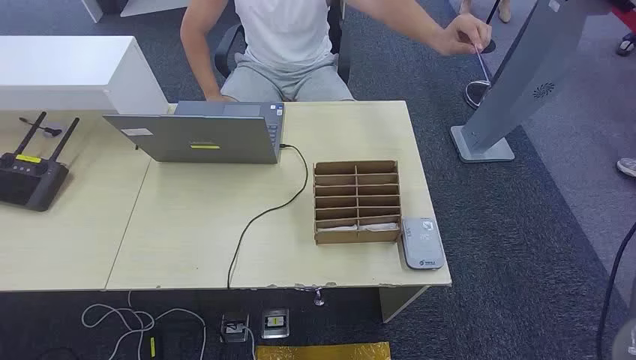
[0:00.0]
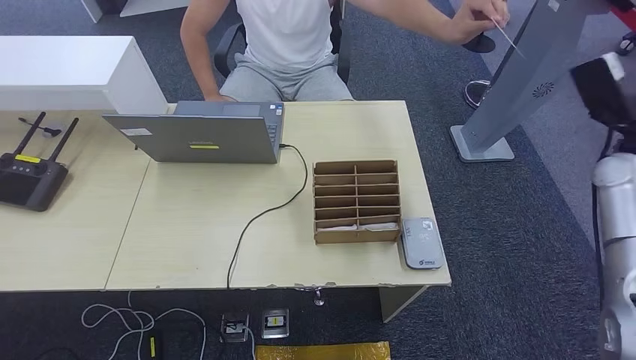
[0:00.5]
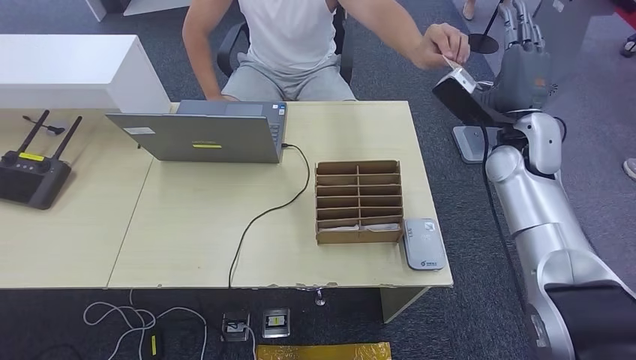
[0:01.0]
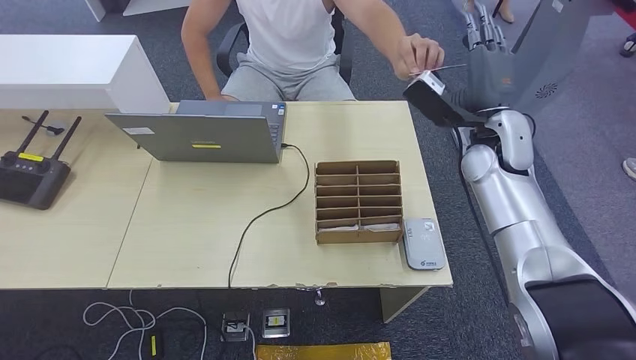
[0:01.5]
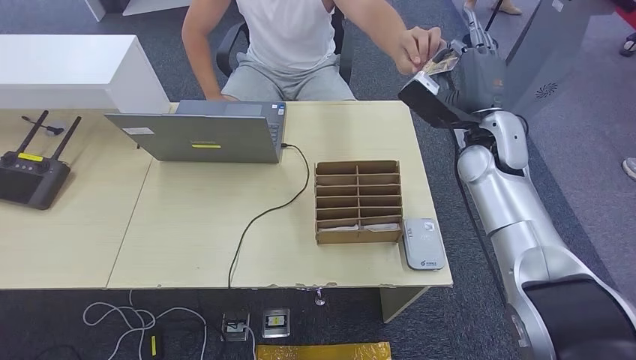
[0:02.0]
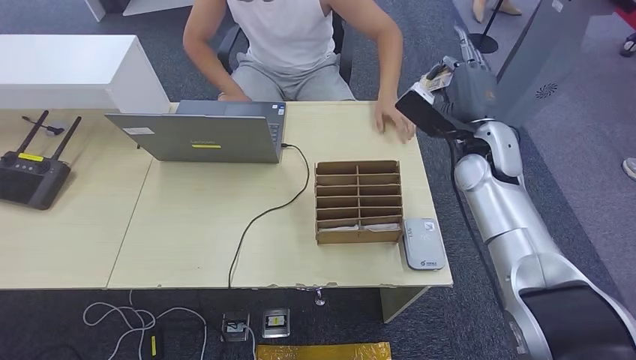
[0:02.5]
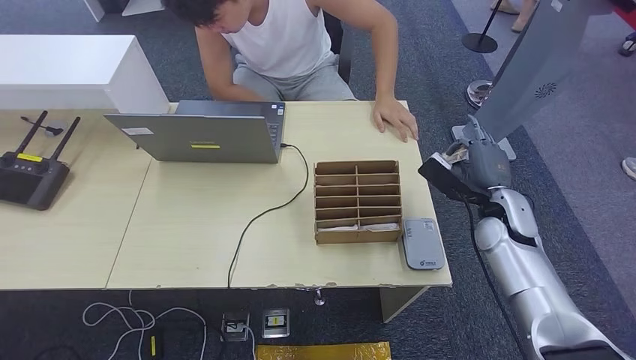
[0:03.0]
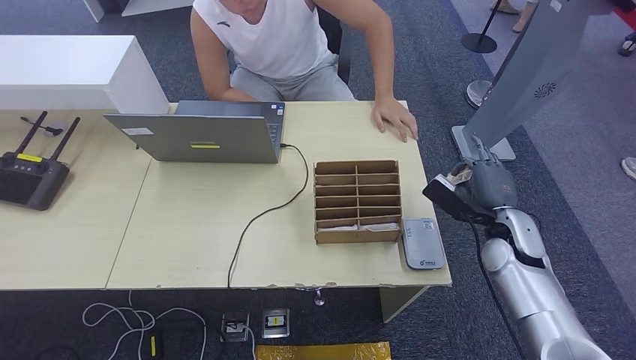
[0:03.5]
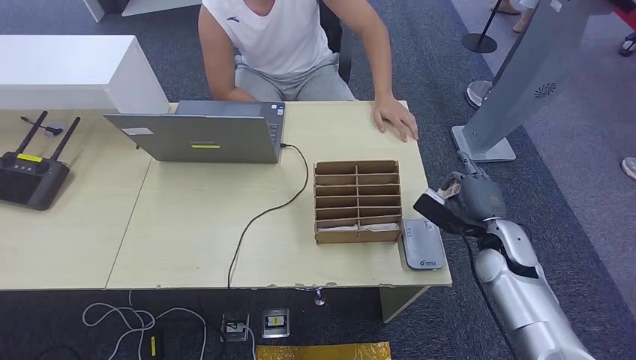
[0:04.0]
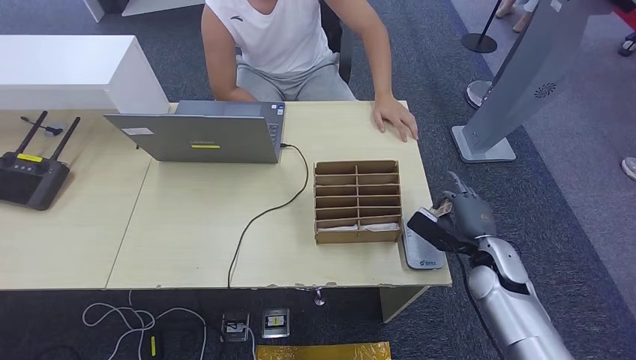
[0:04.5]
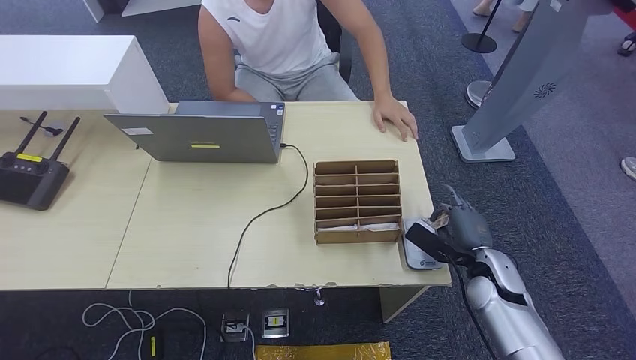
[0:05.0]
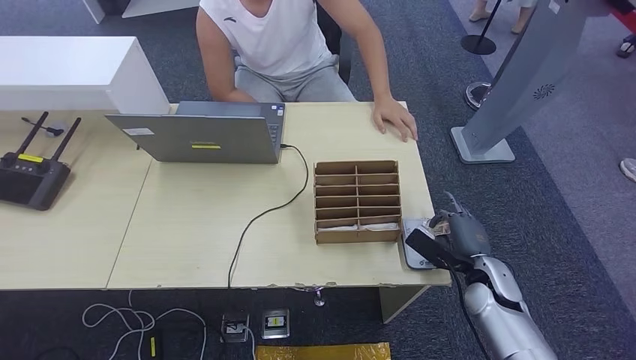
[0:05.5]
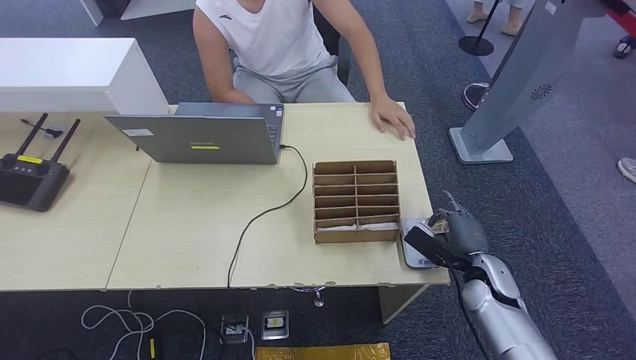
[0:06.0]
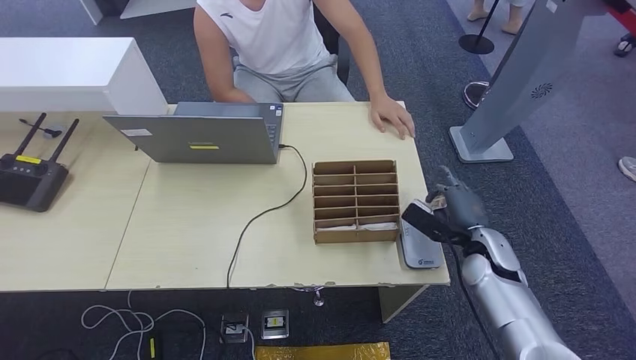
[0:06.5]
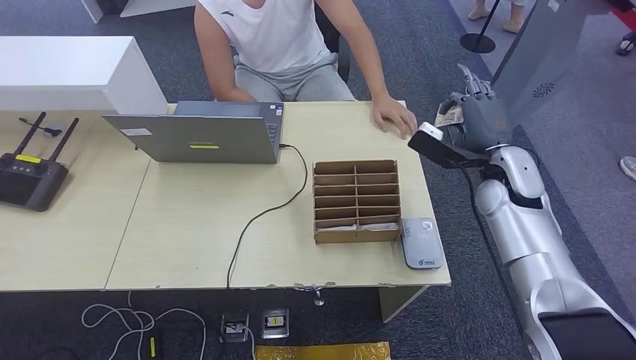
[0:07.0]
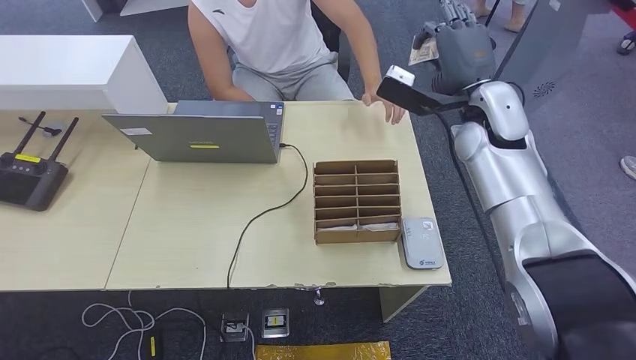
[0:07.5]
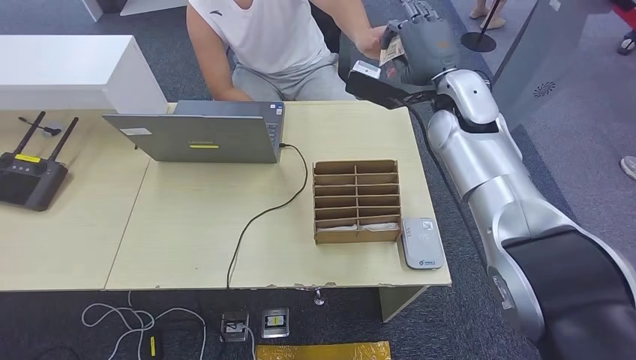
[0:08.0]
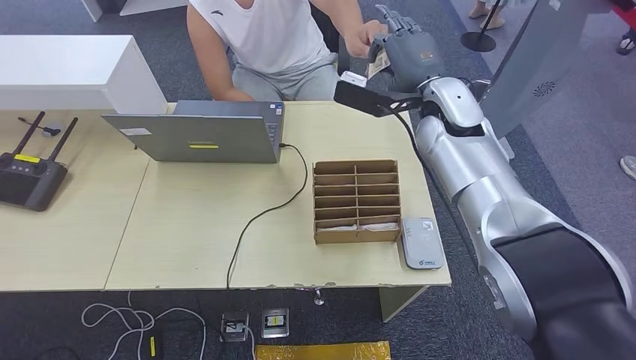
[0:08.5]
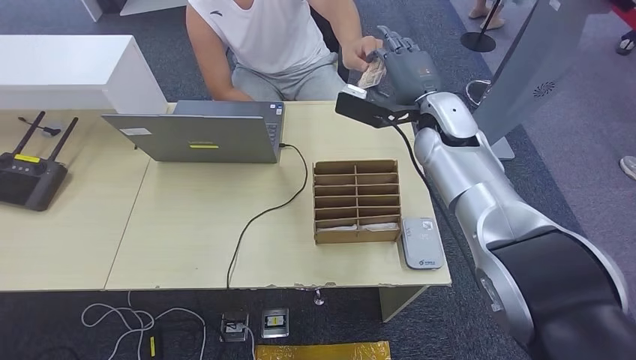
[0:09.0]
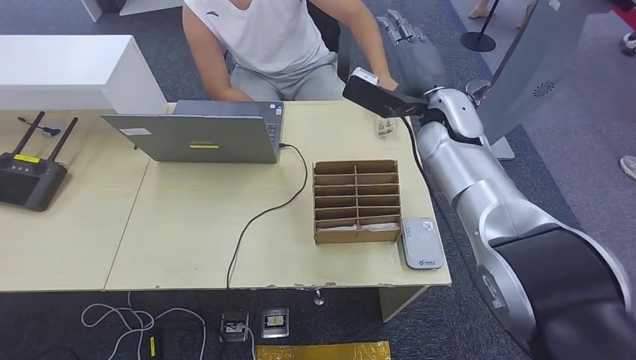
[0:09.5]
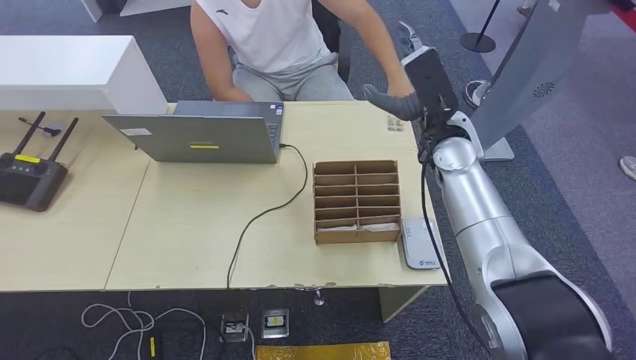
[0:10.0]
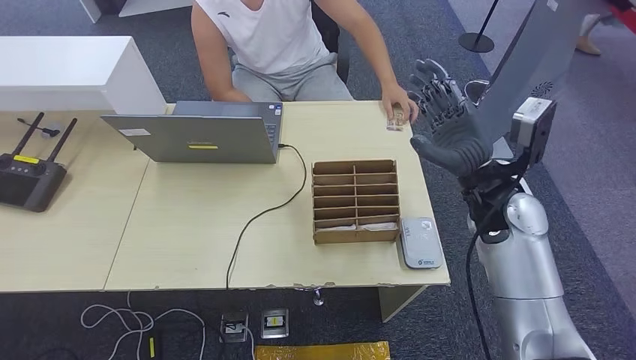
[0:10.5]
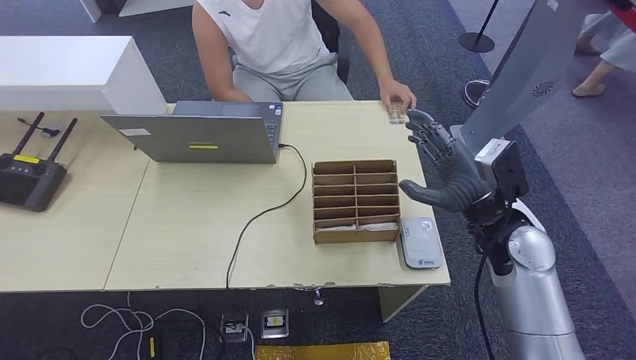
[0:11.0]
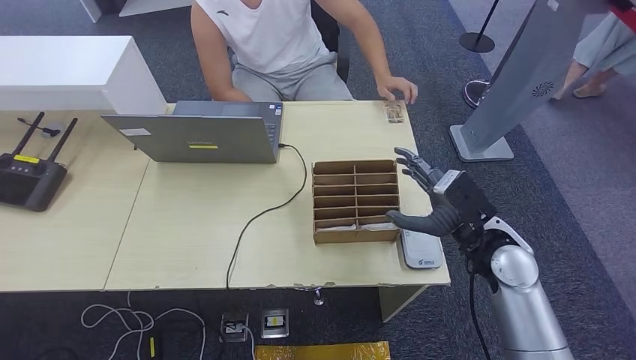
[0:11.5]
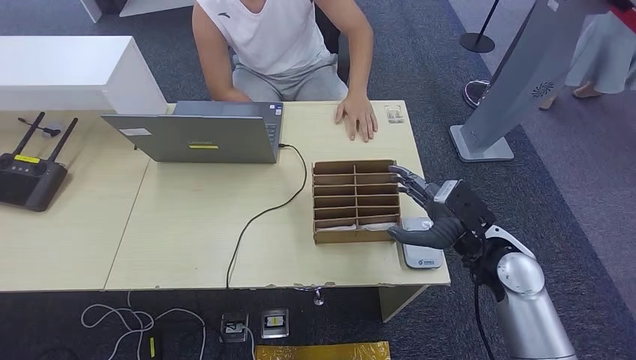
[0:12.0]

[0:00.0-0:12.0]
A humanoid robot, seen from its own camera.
Step, 0:00.0 to 0:02.0: Take the ID card from the person's hand.
Step, 0:02.5 to 0:05.5: Place the ID card on the card reader.
Step, 0:06.0 to 0:10.0: Hand the ID card to the person.
0:02.0 to 0:04.0: The right hand is displaced downward and backward by some 20 cm.
0:04.0 to 0:06.0: The right hand is displaced downward by roughly 5 cm.
0:08.0 to 0:10.0: The right hand goes about 5 cm downward.
0:10.0 to 0:12.0: The right hand heads backward, downward and to the right, covering about 20 cm.

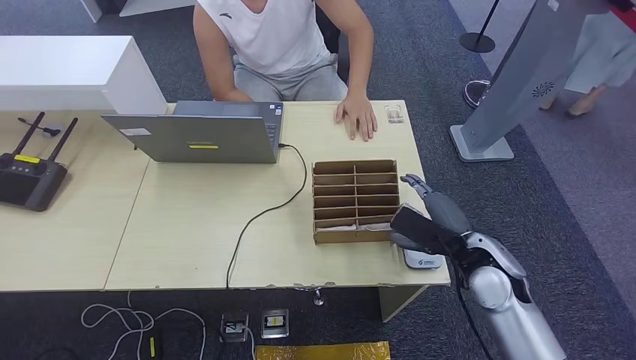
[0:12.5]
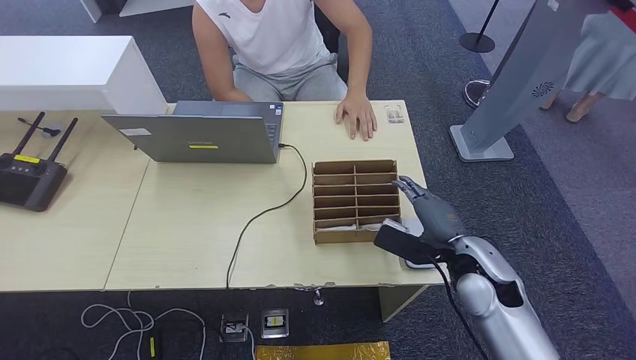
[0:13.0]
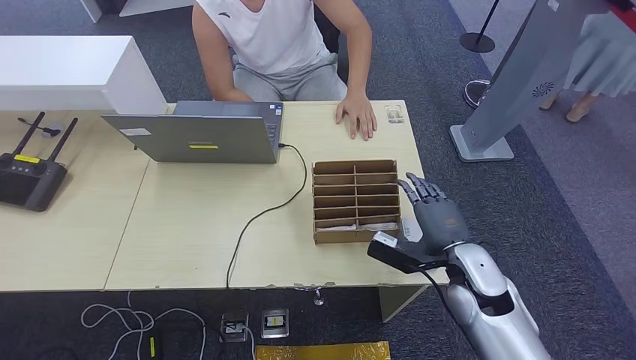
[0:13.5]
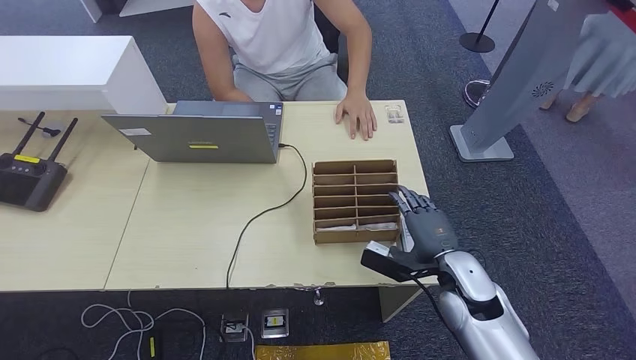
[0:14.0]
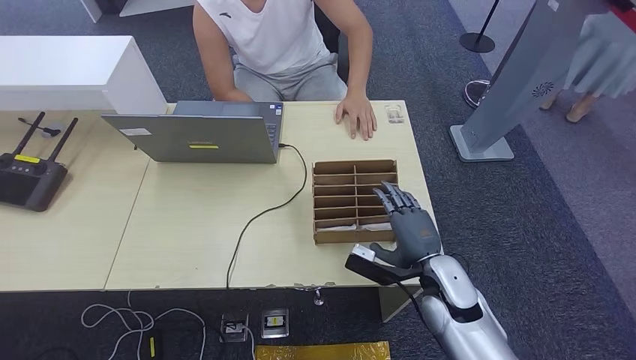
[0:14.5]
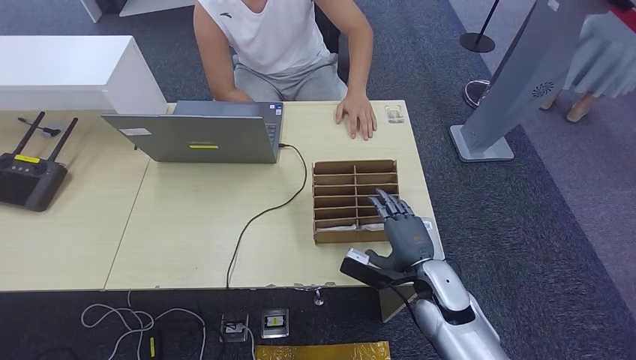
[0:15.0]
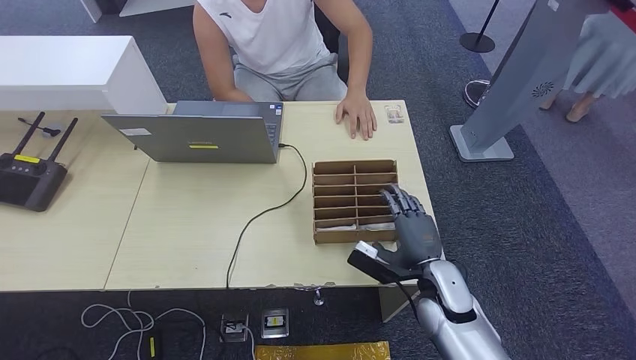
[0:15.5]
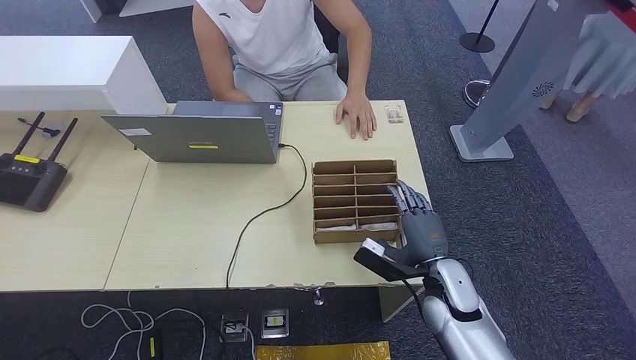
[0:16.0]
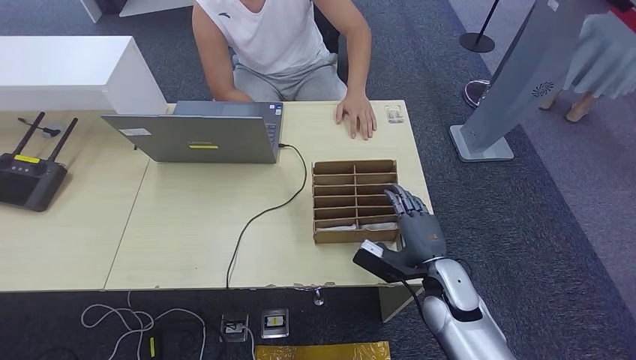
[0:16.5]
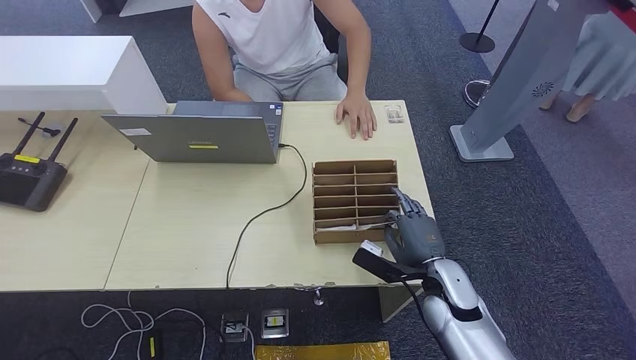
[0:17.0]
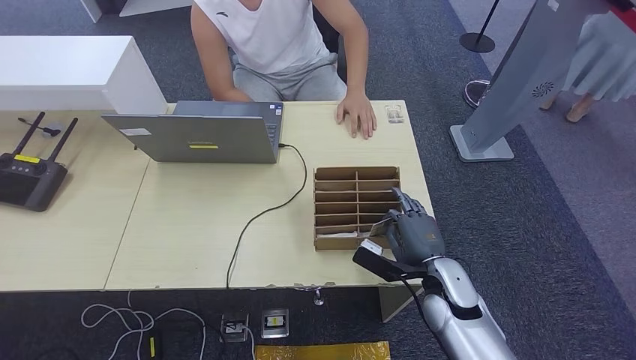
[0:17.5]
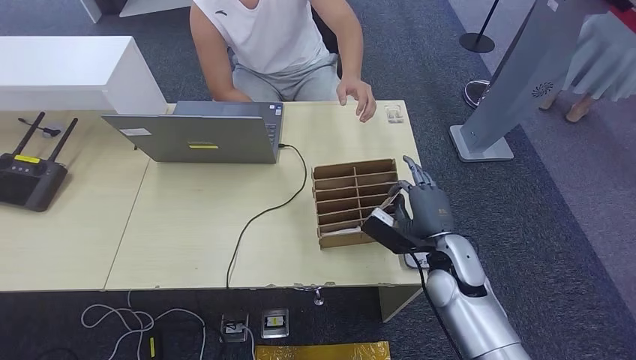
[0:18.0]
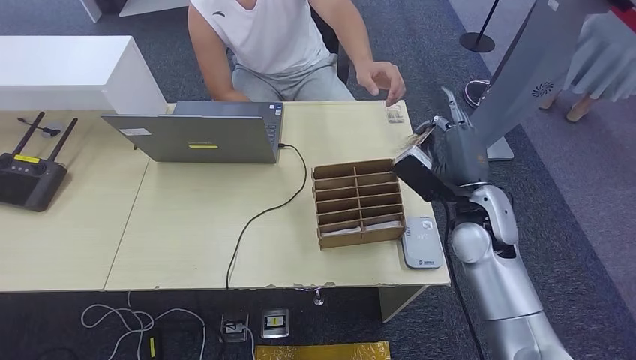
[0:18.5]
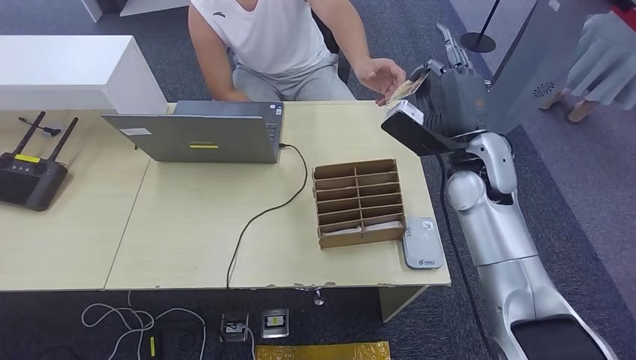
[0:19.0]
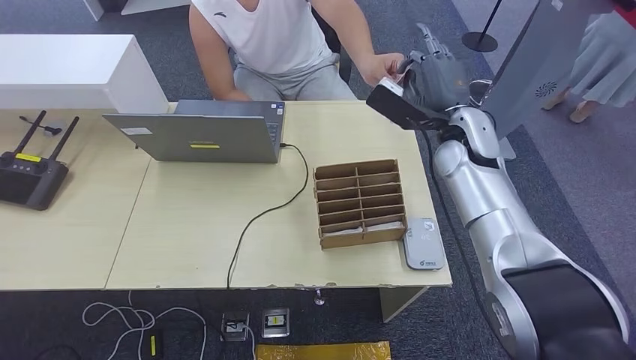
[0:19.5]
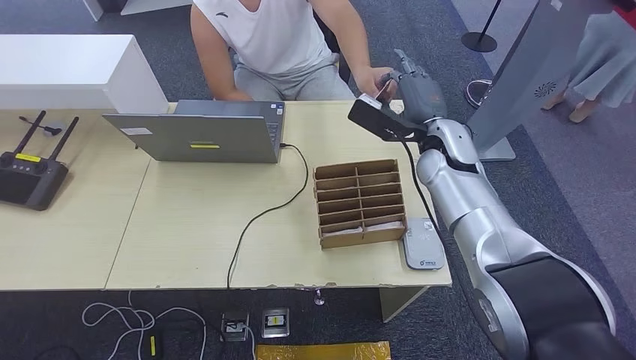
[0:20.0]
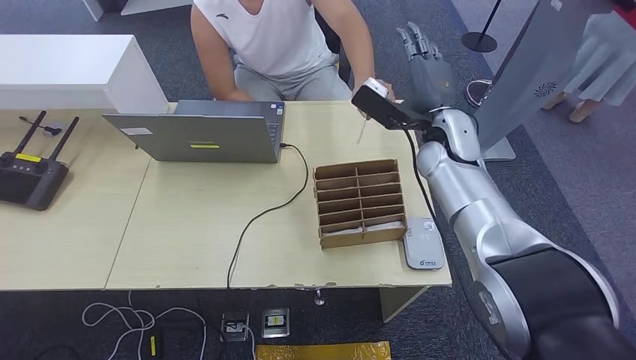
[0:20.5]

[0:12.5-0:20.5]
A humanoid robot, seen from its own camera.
Step, 0:12.5 to 0:18.5: Pick up the room key from the key card box.
Step, 0:19.0 to 0:20.5: Hand the room key to the person.
0:12.5 to 0:14.5: The right hand moves to the left and downward, some 10 cm.
0:14.5 to 0:16.5: There are only small adjustments of the hands.
0:16.5 to 0:18.5: The right hand moves upward and forward, approximately 15 cm.
0:18.5 to 0:20.5: The right hand travels forward and upward by approximately 15 cm.
